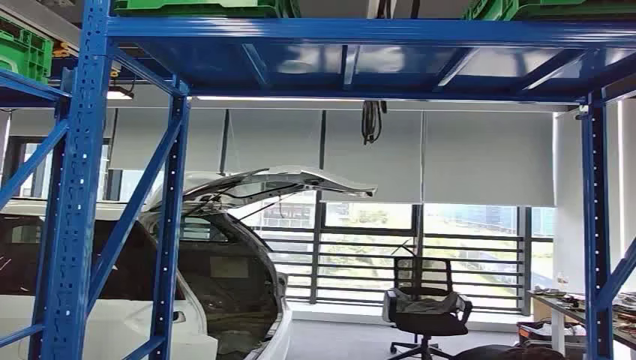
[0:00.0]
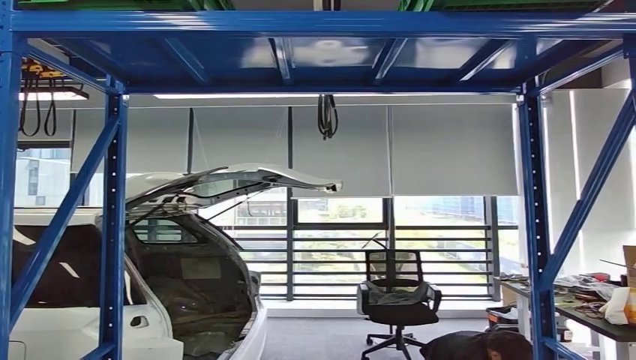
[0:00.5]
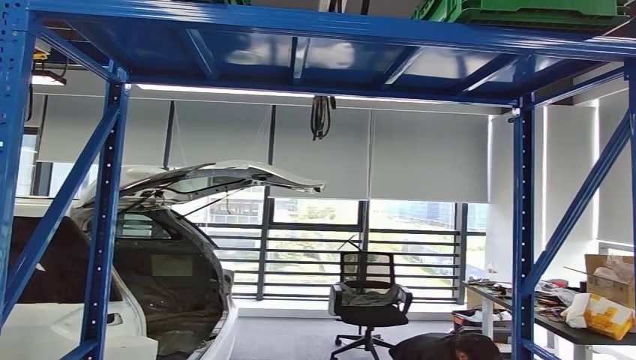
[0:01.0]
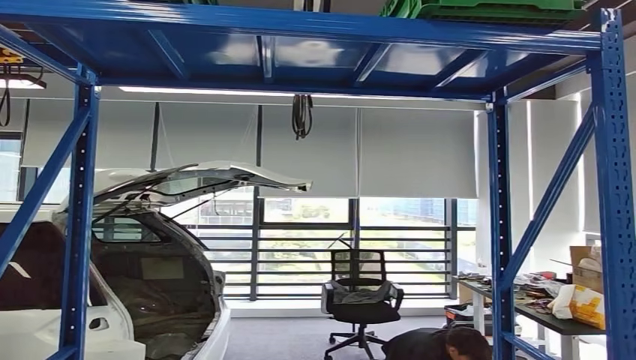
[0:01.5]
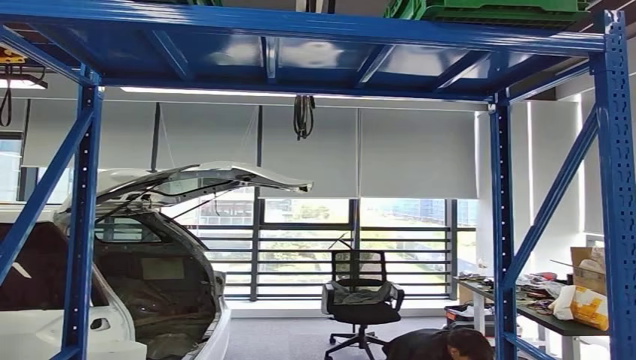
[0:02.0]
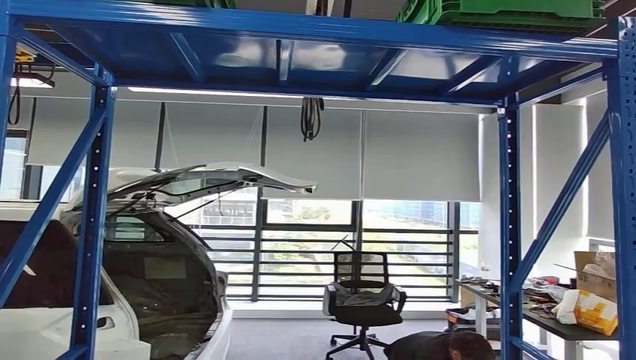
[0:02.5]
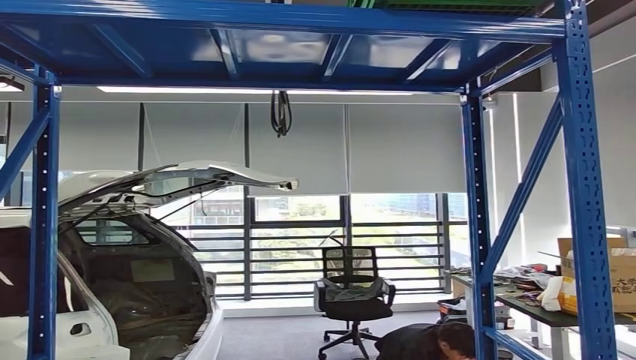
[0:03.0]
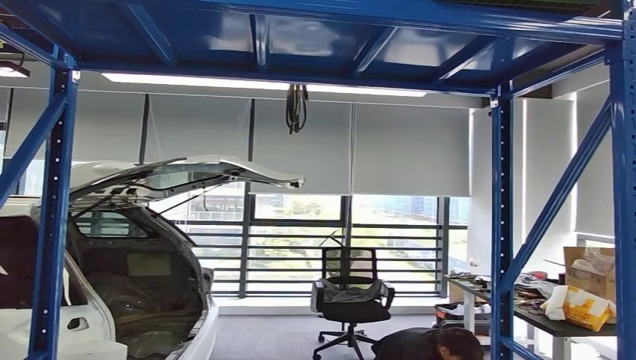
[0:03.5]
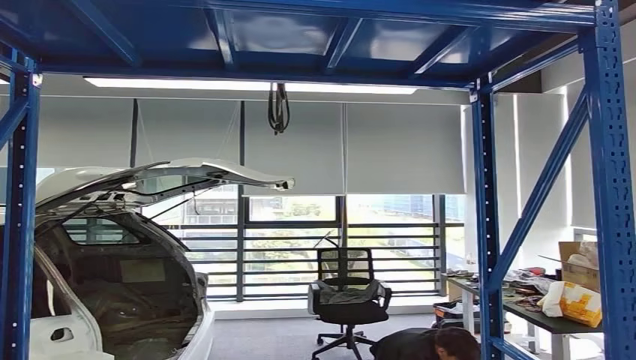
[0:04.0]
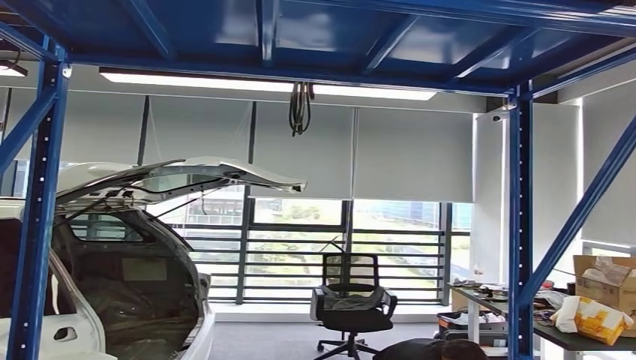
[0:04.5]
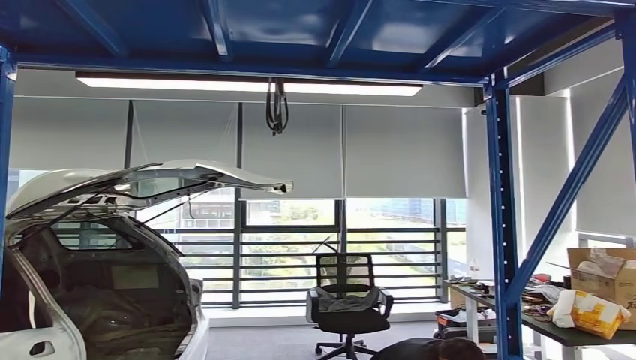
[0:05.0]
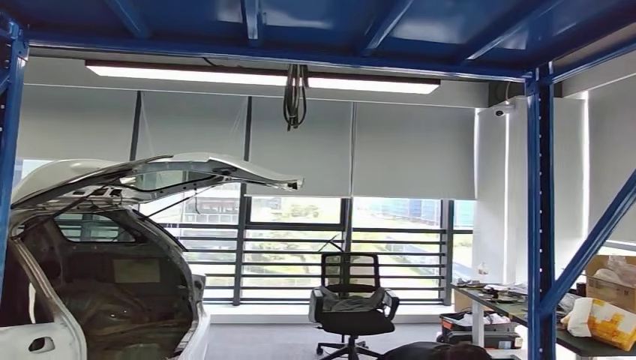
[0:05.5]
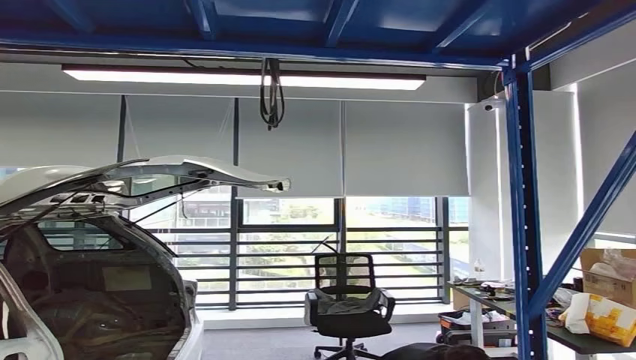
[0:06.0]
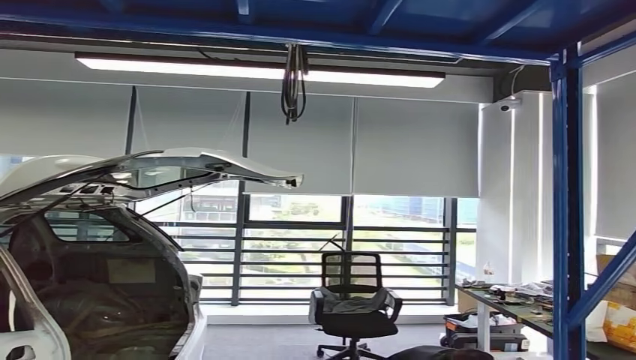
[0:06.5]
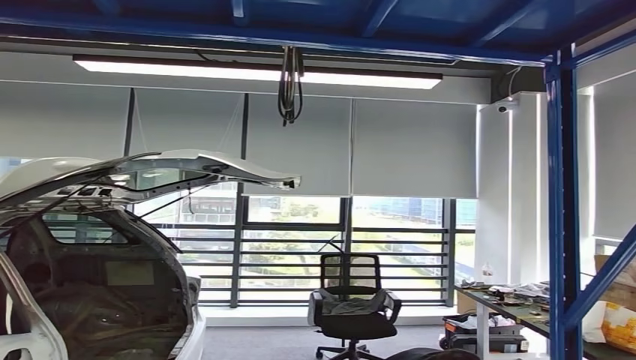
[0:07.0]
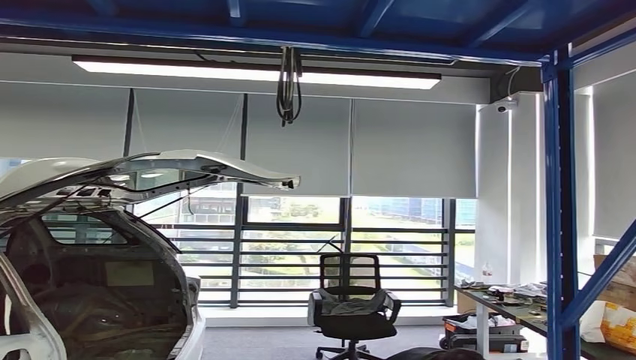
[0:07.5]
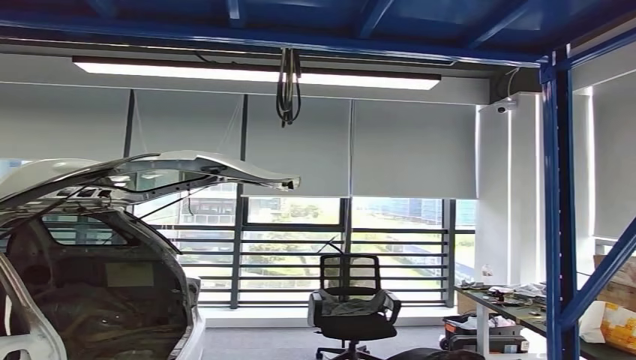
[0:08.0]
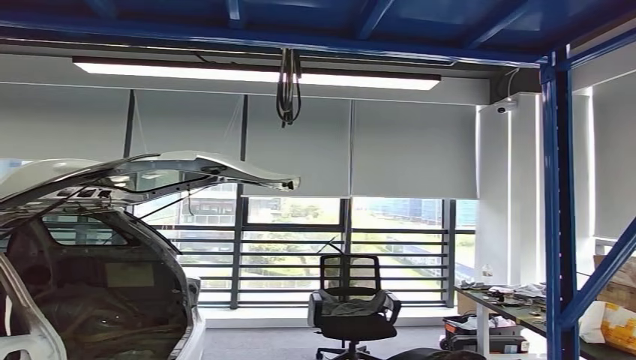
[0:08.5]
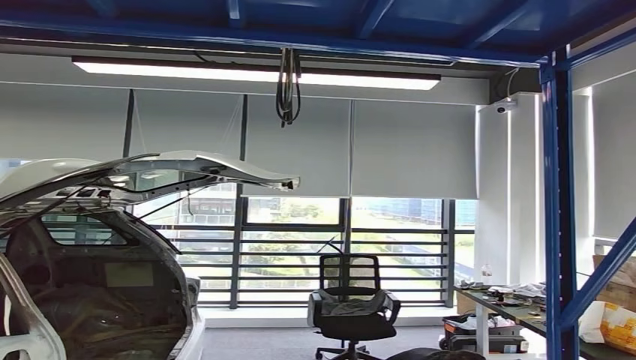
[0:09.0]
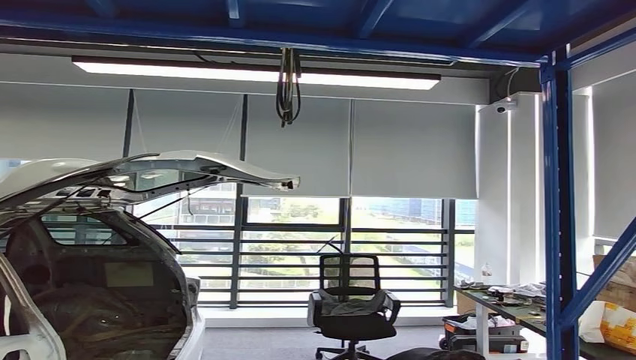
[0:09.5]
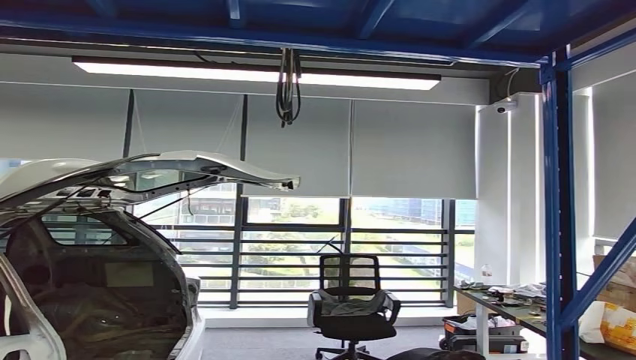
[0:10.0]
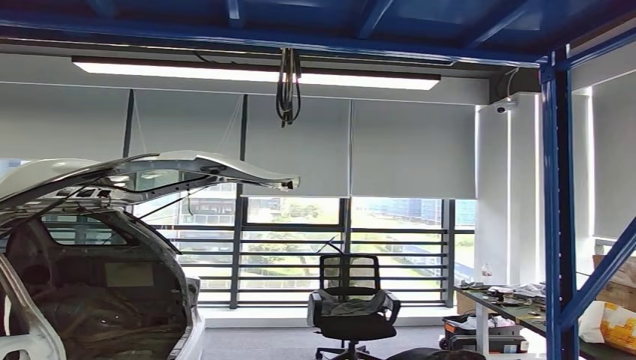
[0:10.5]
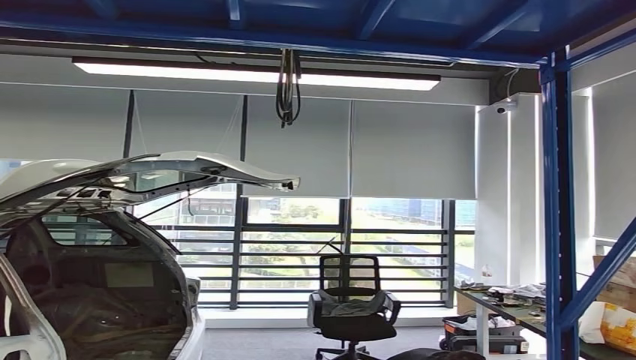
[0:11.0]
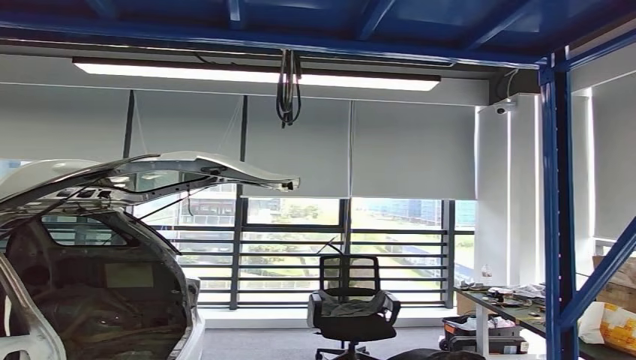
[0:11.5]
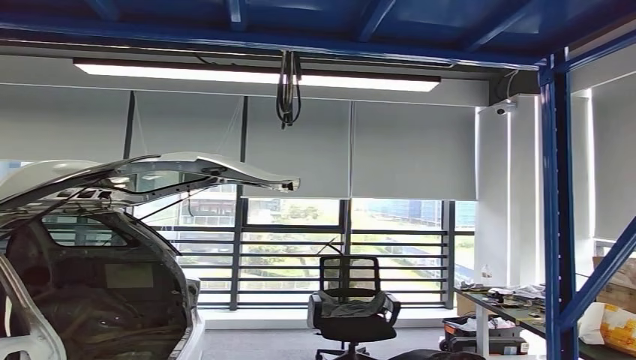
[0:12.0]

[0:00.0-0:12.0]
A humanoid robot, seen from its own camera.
0:10.0 to 0:12.0: The right hand shifts approximately 10 cm forward.

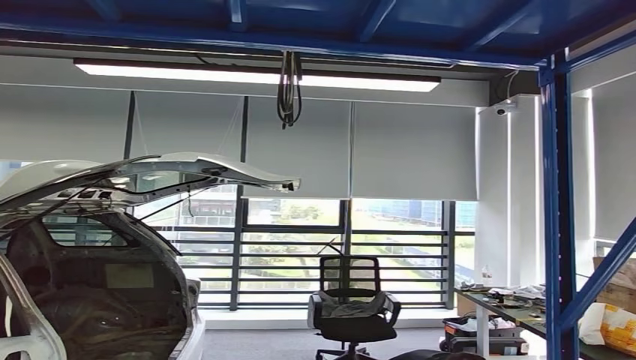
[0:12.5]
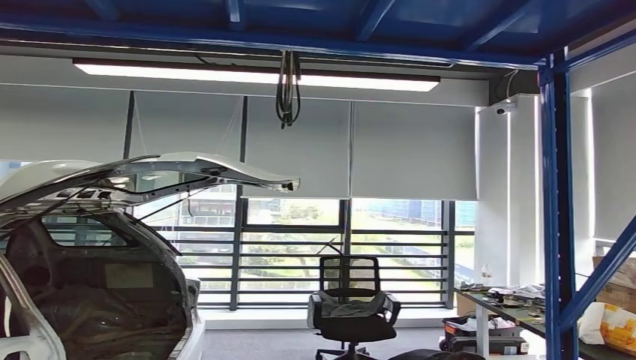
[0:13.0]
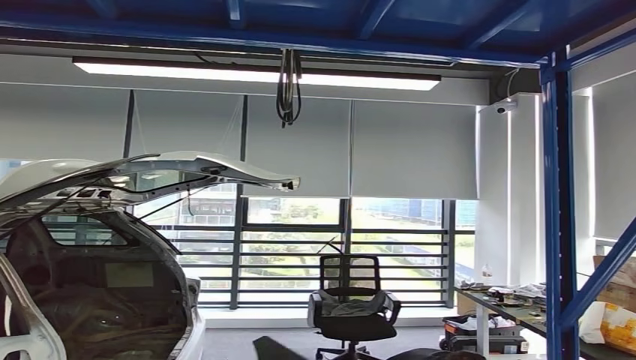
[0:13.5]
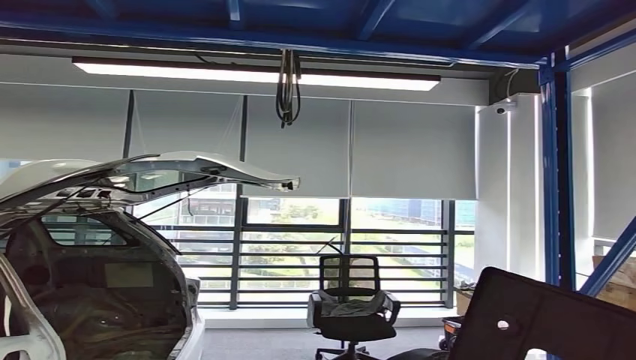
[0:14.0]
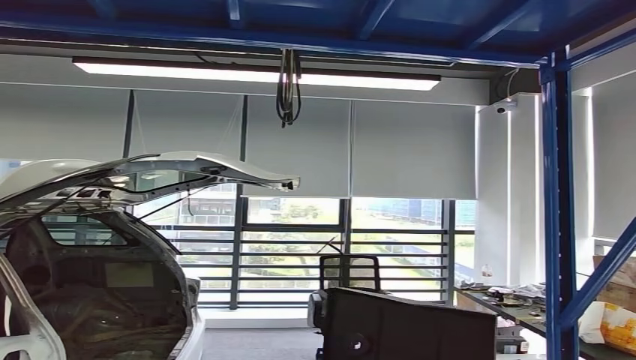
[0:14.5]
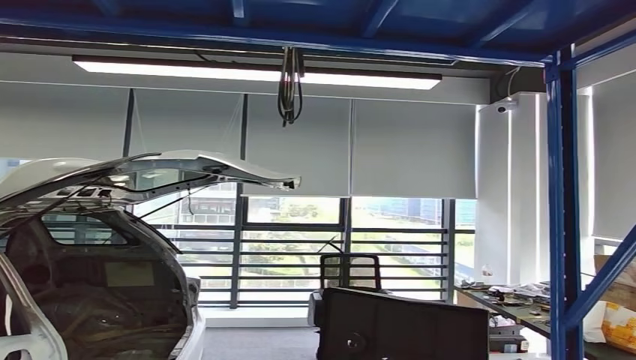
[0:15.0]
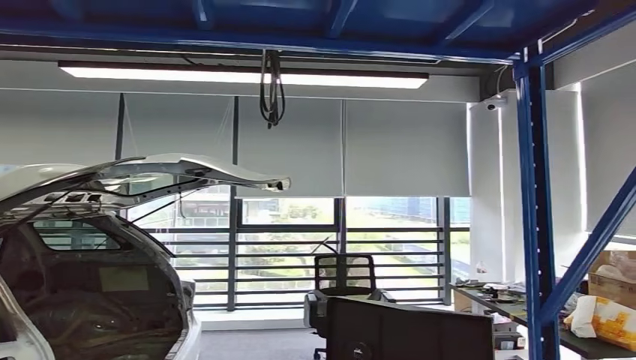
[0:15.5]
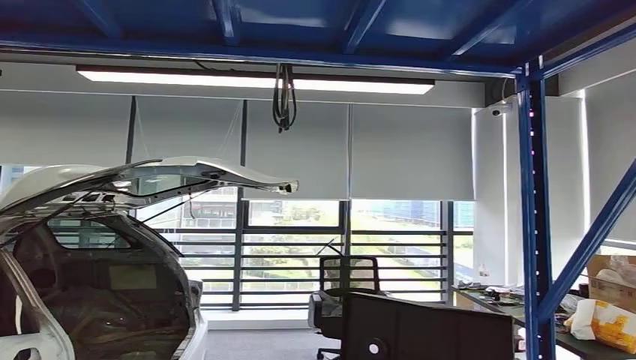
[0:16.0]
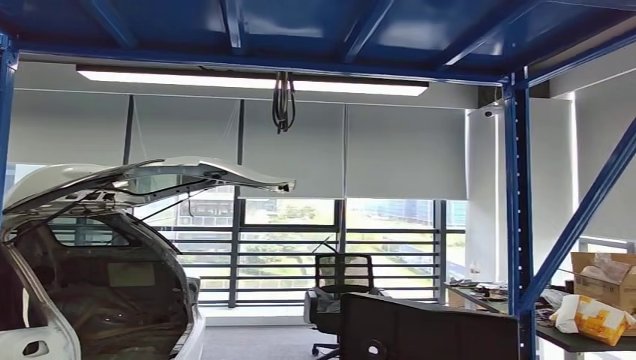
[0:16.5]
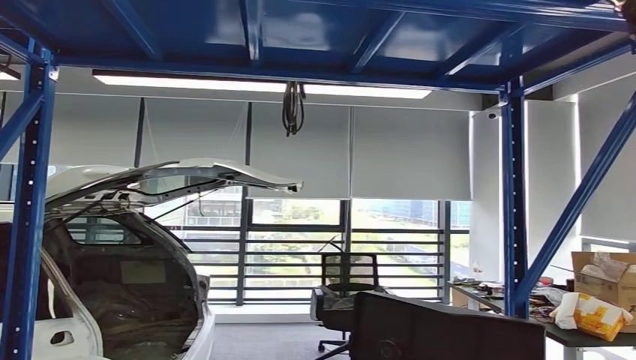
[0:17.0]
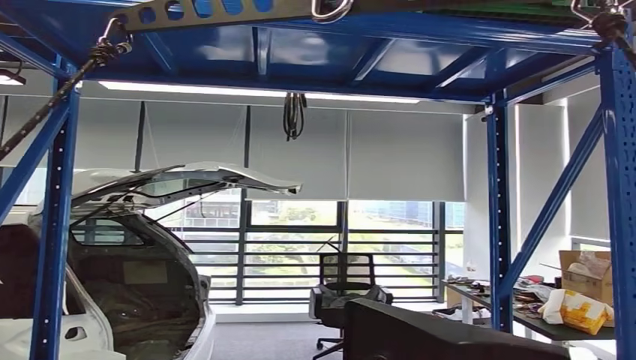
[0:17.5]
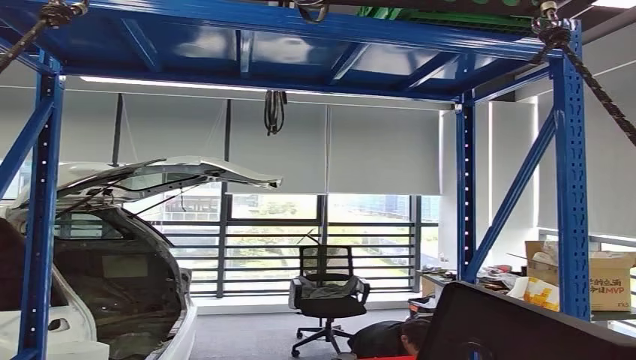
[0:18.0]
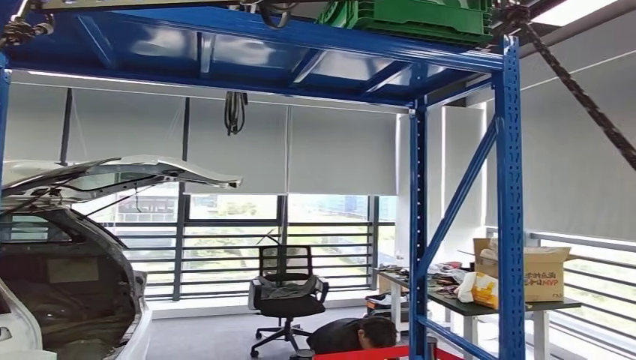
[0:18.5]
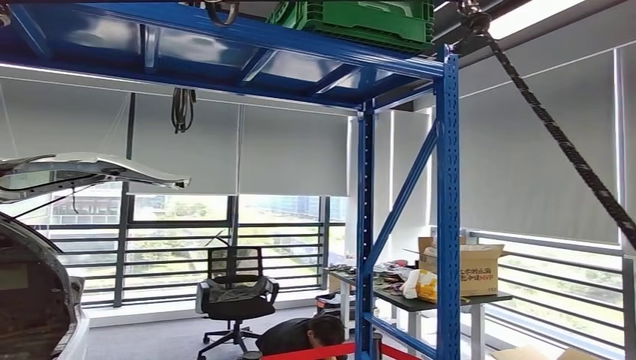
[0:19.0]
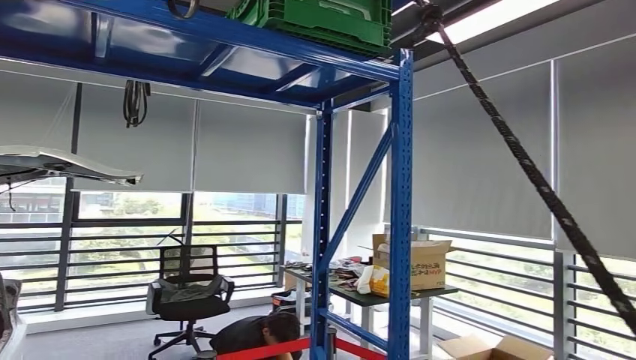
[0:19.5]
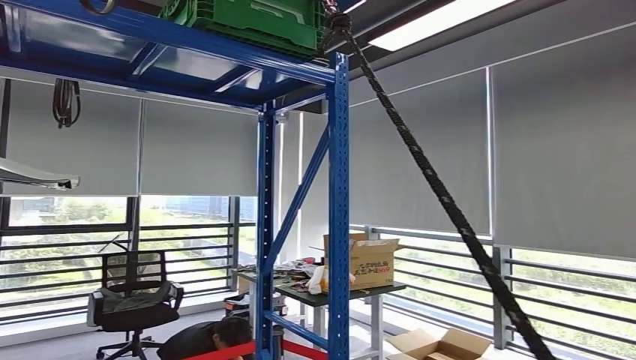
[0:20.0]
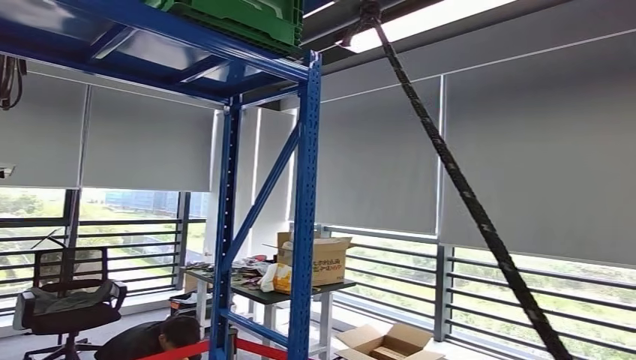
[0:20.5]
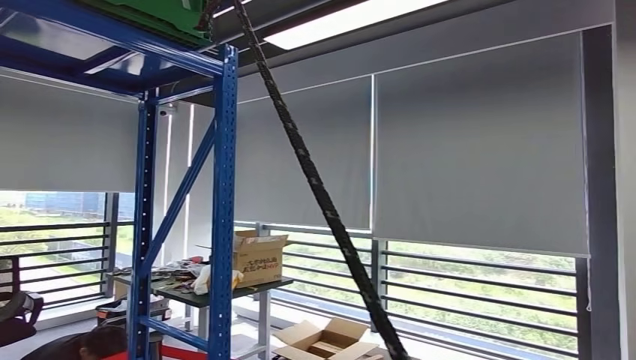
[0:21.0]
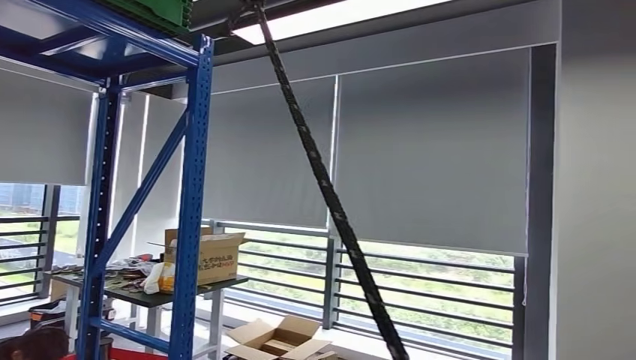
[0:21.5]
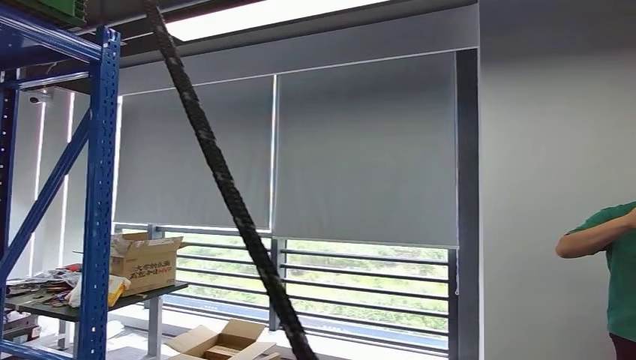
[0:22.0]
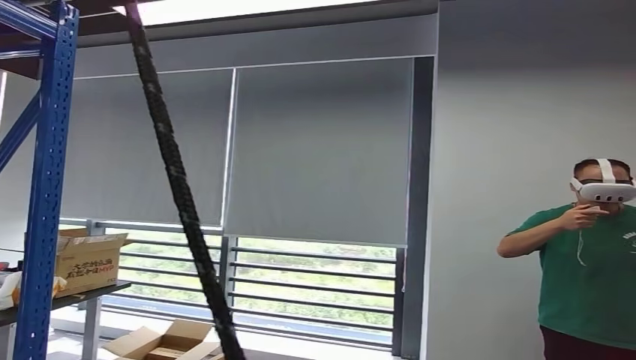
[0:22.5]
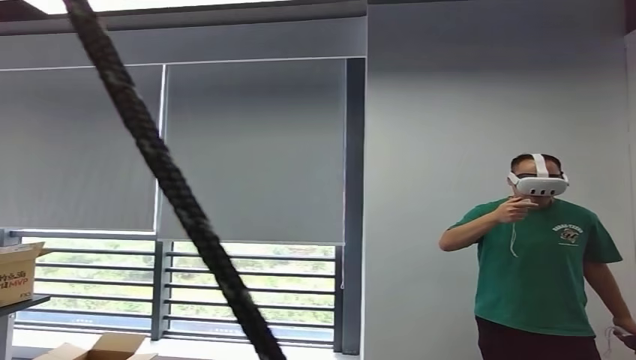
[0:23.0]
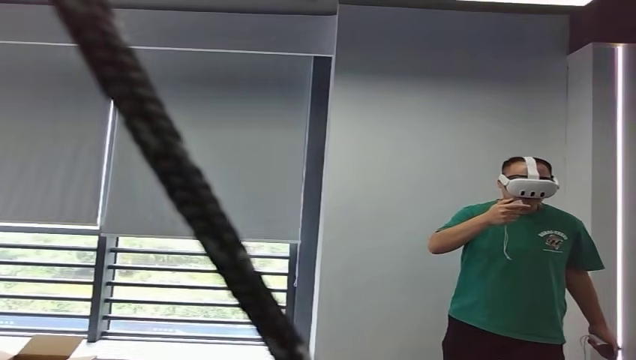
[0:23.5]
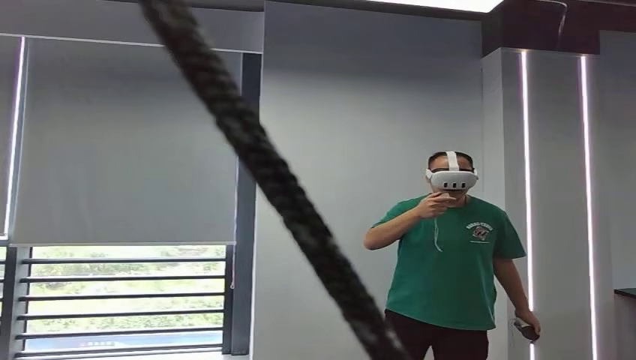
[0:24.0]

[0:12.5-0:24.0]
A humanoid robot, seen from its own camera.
0:12.5 to 0:14.5: The right hand is displaced upward and backward by some 15 cm.
